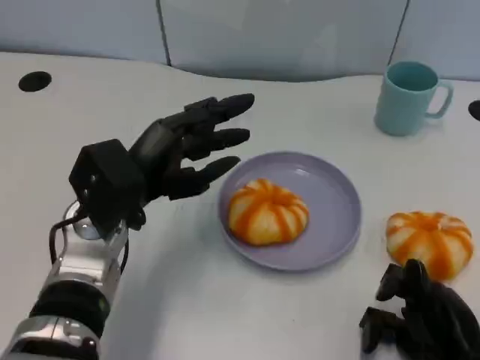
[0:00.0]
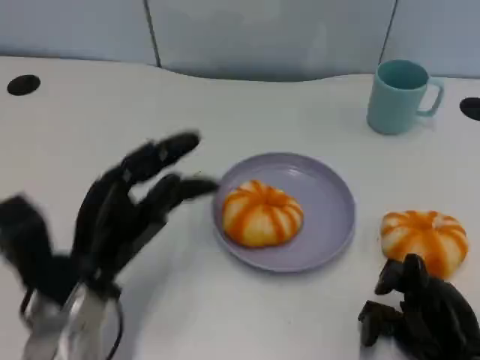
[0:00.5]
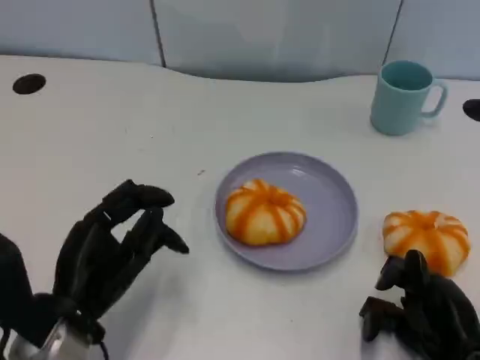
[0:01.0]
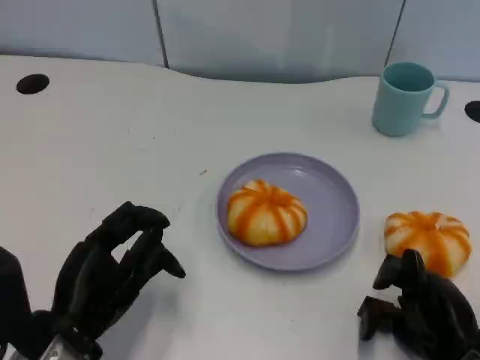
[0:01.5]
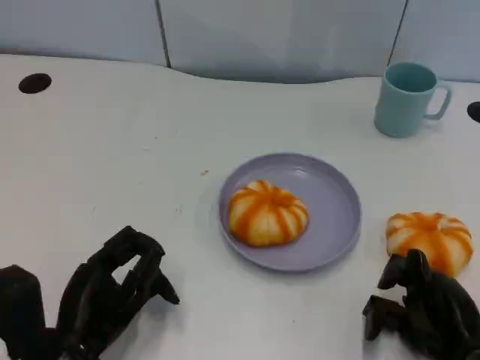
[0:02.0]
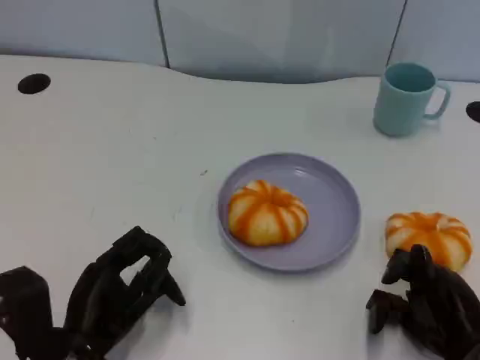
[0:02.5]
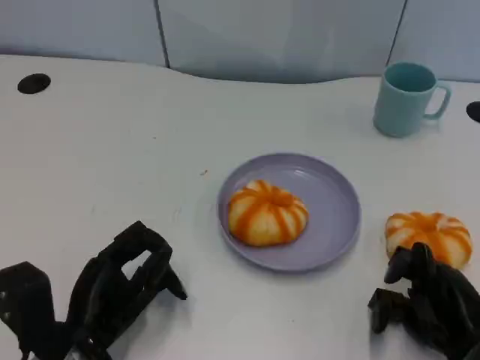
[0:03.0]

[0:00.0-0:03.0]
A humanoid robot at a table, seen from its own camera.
Task of the whole recording: Grasp the bread from the table and place it into the plate.
0:00.0 to 0:01.5: The left hand travels backward, downward and to the left by some 15 cm.
0:01.5 to 0:03.0: There are only small adjustments of the hands.

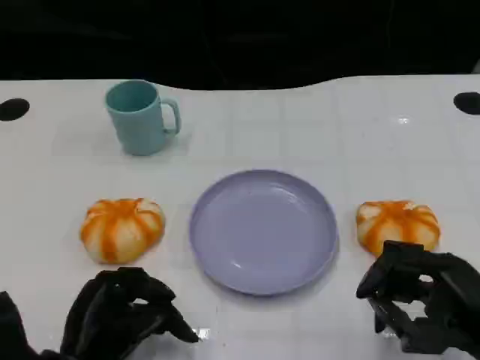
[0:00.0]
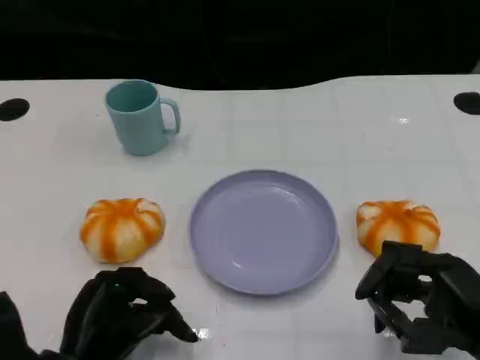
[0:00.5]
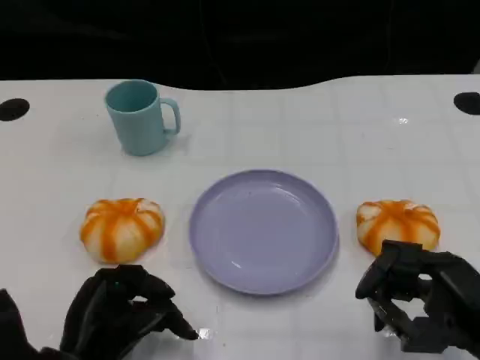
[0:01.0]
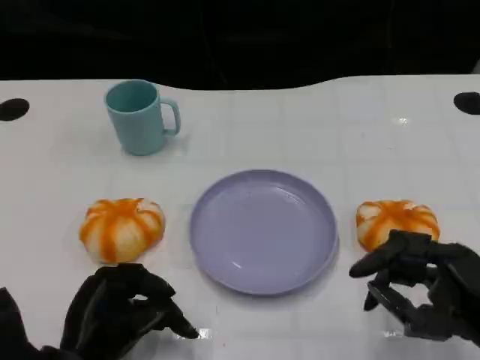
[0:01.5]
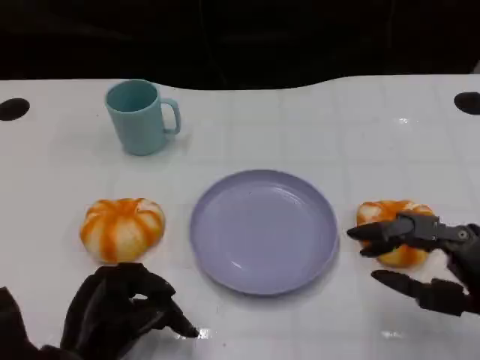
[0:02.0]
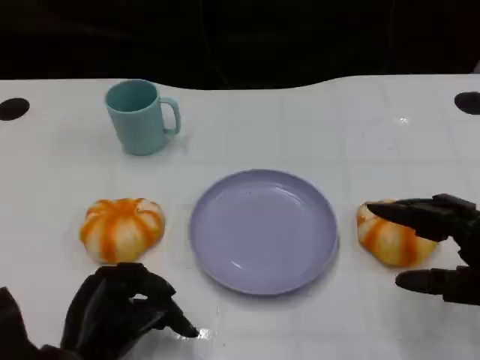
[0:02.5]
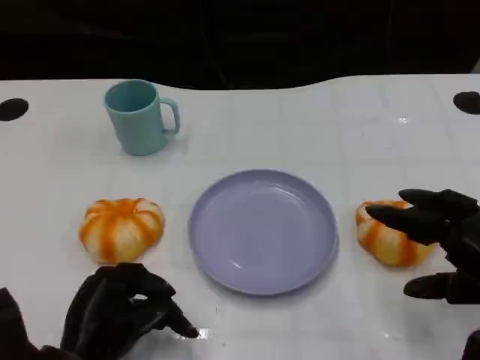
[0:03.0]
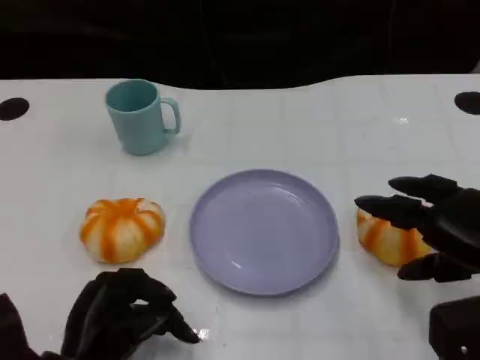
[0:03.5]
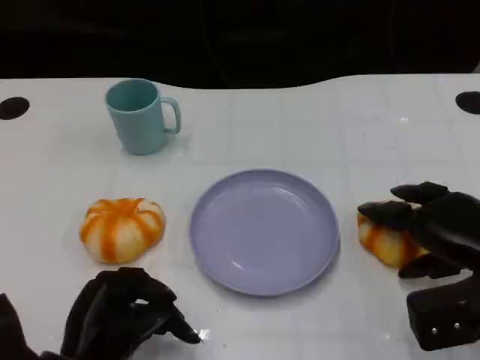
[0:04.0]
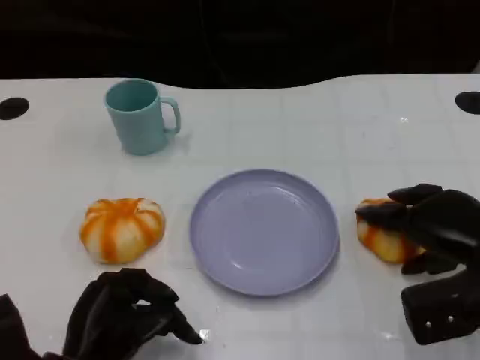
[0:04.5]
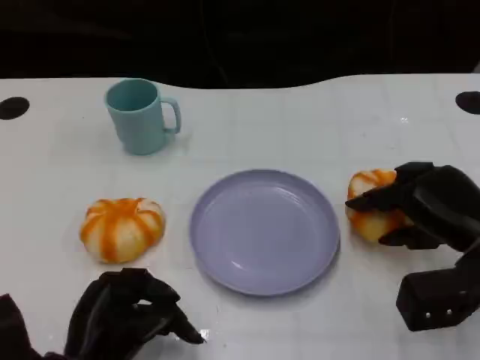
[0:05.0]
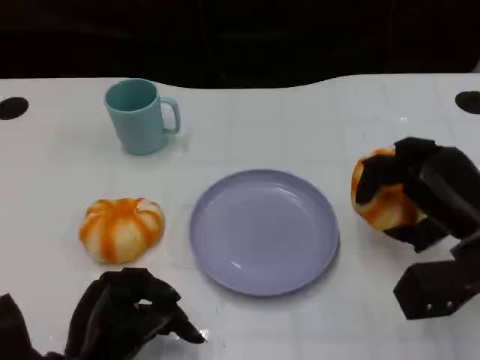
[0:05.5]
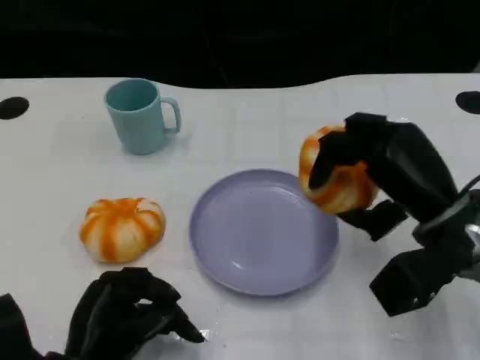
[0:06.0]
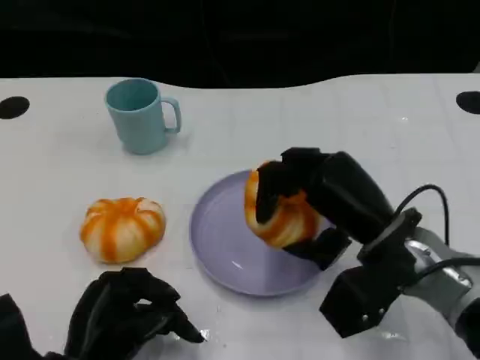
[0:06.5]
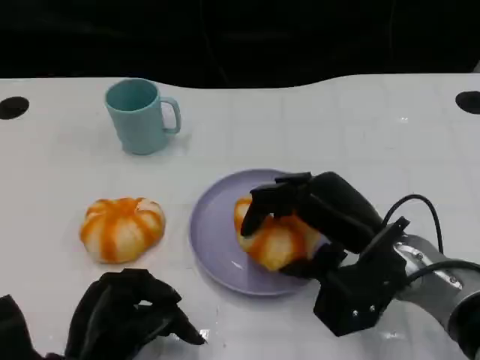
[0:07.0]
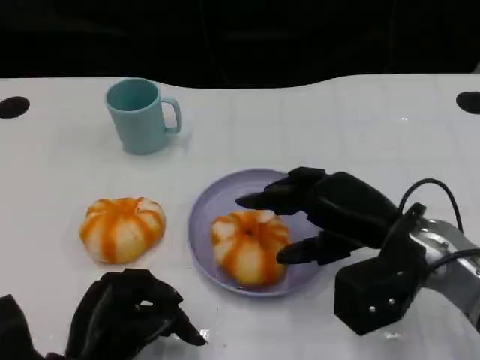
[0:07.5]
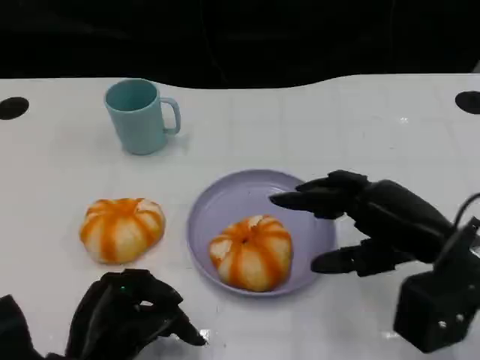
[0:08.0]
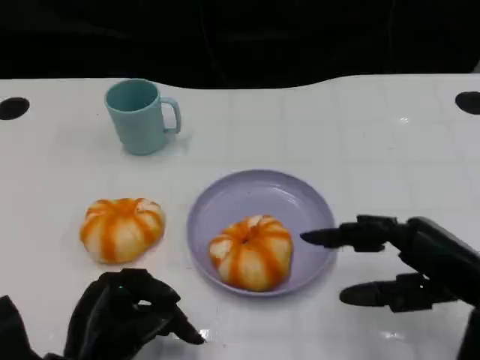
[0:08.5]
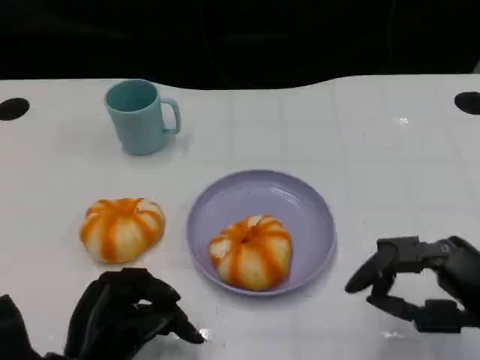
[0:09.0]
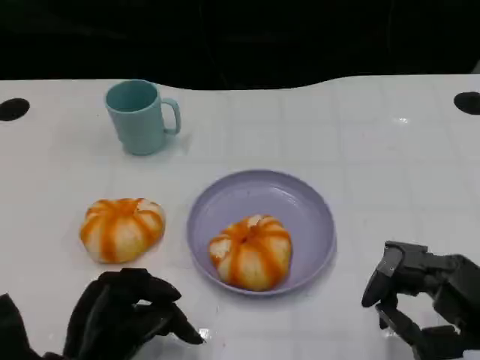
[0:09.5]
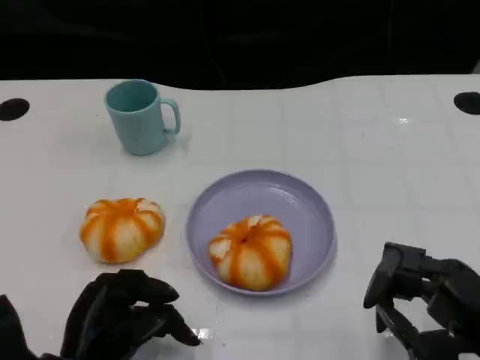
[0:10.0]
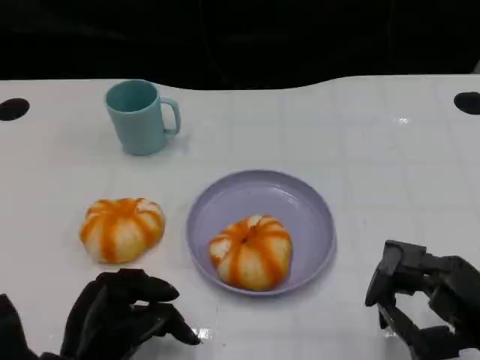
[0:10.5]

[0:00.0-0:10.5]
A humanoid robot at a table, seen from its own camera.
Task of the whole recording: Grasp the bread from the table and place it into the plate.
0:02.0 to 0:04.0: The right hand goes approximately 10 cm forward.
0:04.0 to 0:06.5: The right hand travels to the left by some 10 cm.
0:06.5 to 0:08.5: The right hand goes some 10 cm to the right and backward.
0:08.5 to 0:10.5: The right hand ends up approximately 5 cm from where it was.

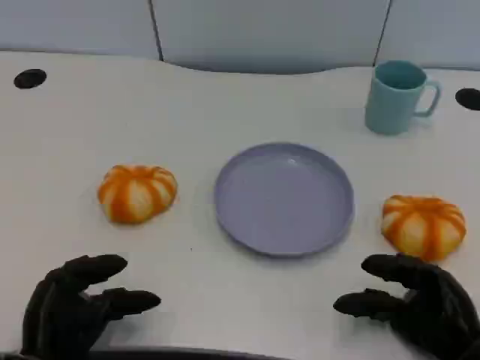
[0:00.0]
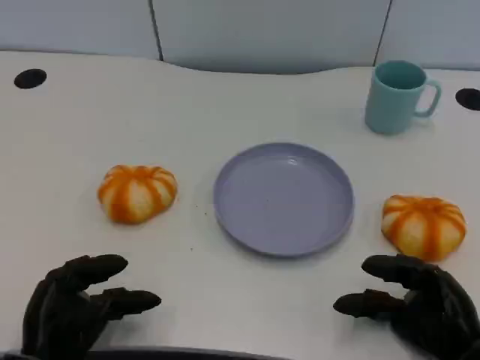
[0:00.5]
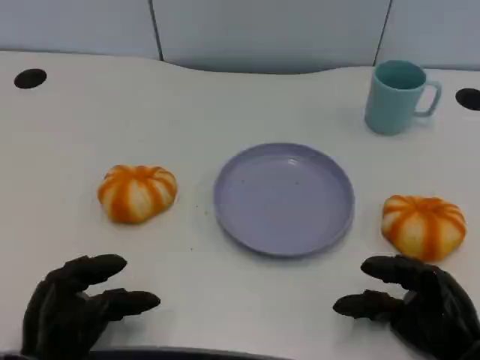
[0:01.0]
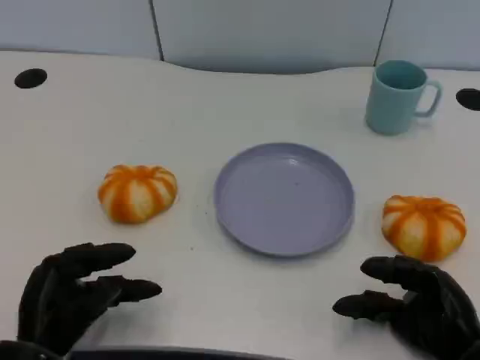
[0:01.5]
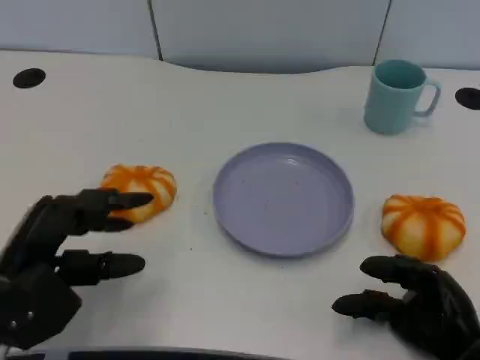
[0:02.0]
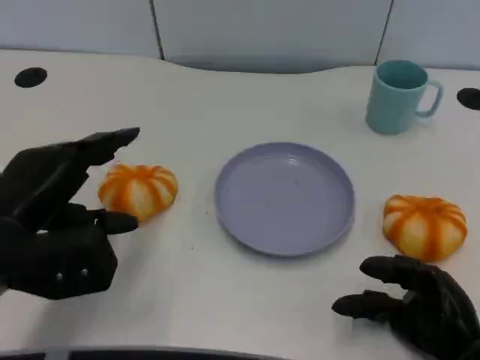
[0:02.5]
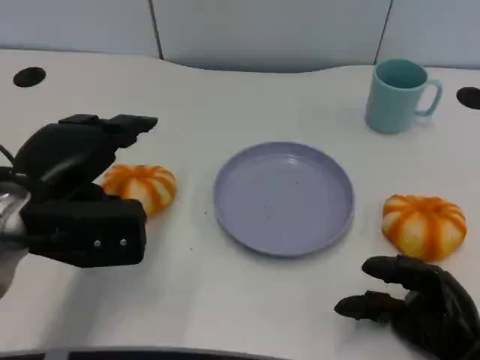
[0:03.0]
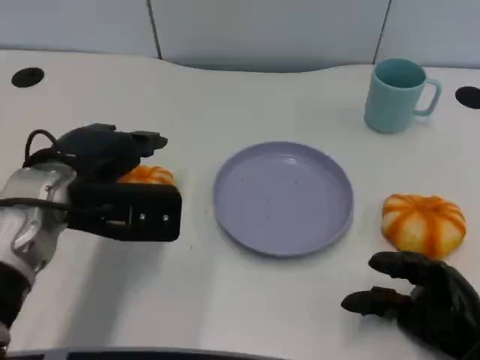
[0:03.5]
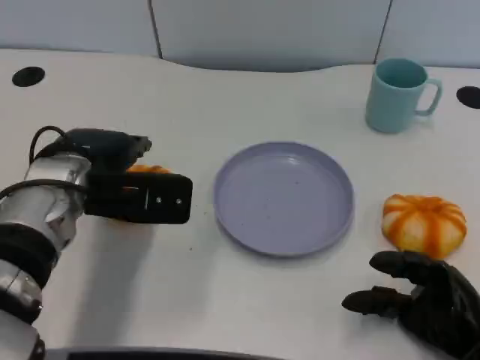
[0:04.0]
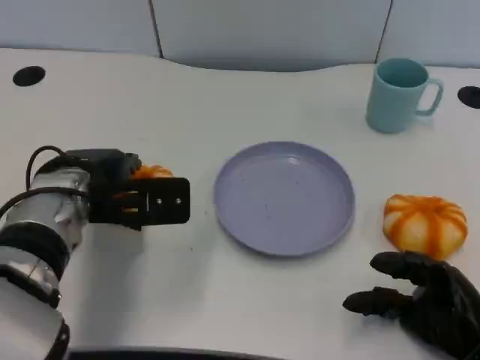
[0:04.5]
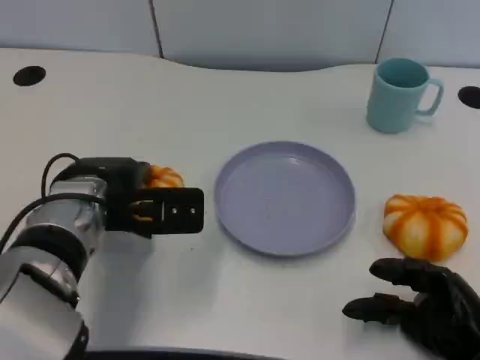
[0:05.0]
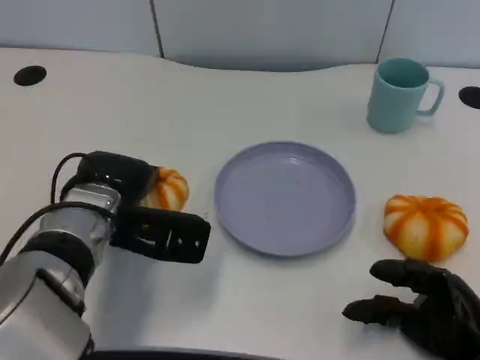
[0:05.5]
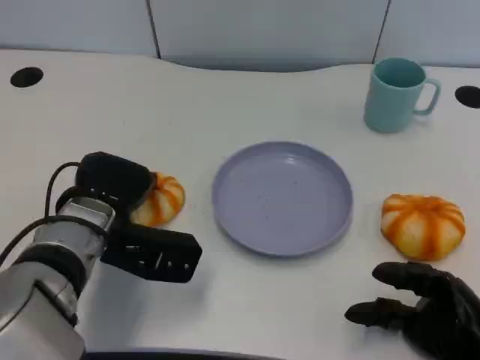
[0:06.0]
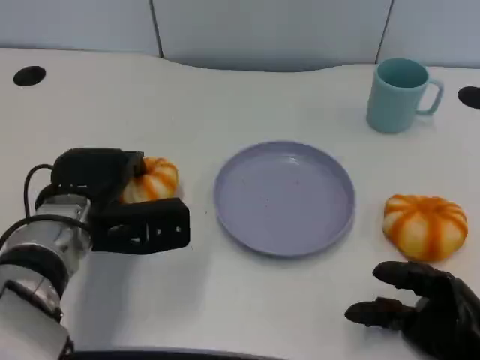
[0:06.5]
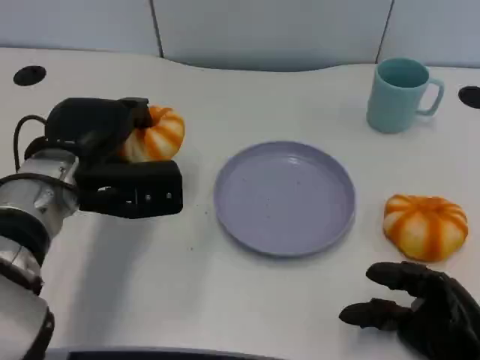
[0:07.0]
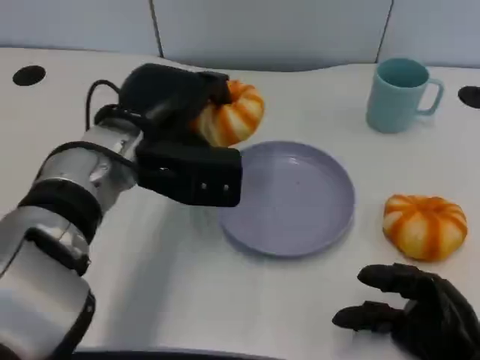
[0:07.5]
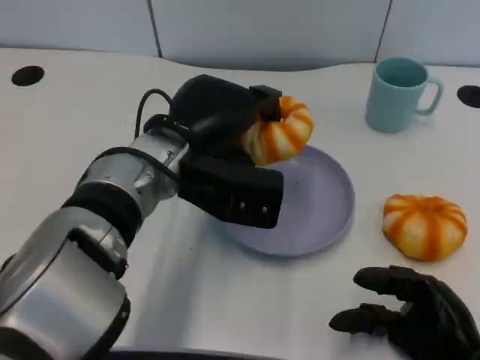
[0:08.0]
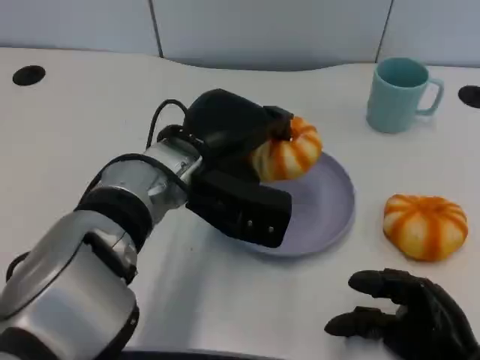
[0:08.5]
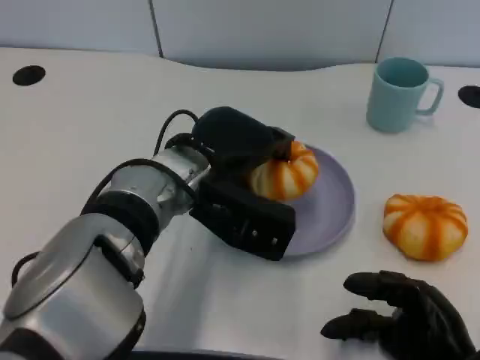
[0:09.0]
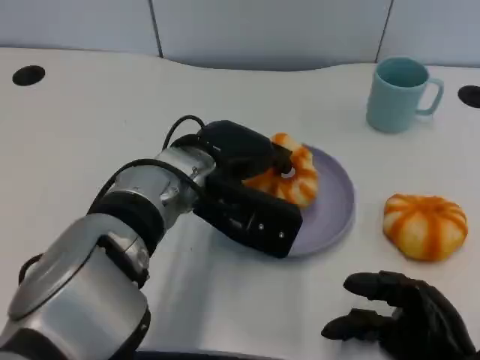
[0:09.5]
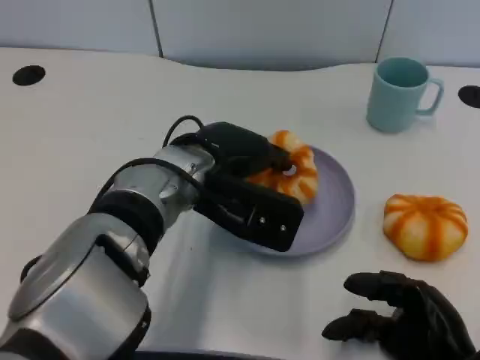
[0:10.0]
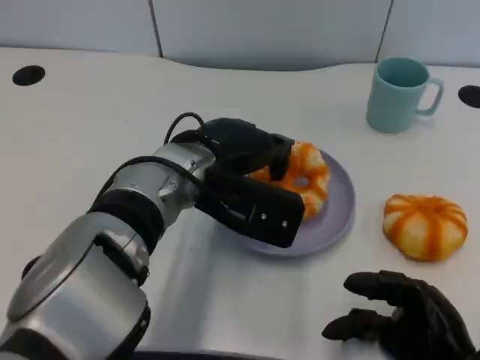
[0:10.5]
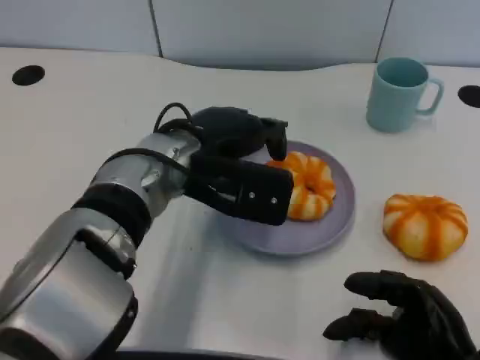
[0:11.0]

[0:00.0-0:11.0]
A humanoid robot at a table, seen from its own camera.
Task of the whole recording: Grasp the bread from the table and place it into the plate.
0:00.0 to 0:02.0: The left hand heads upward, covering about 10 cm.
0:02.0 to 0:03.5: The left hand heads forward, to the right and upward, covering some 10 cm.
0:03.5 to 0:05.5: The left hand heads downward, covering about 5 cm.
0:05.5 to 0:07.5: The left hand goes about 5 cm upward.
0:07.5 to 0:09.0: The left hand moves approximately 5 cm.
0:09.0 to 0:11.0: The hands stay close to where they were, moving slightly.

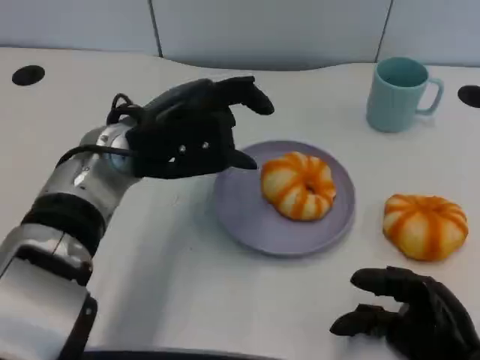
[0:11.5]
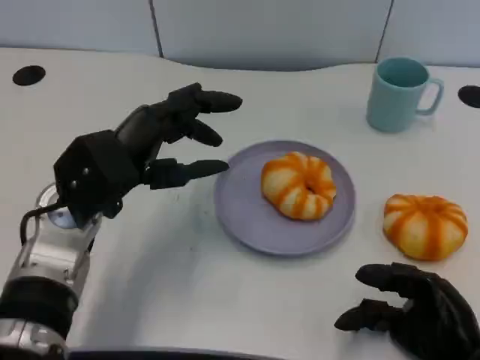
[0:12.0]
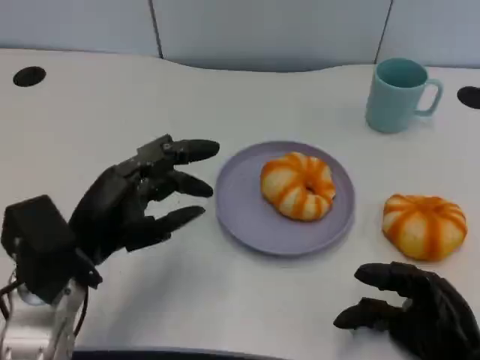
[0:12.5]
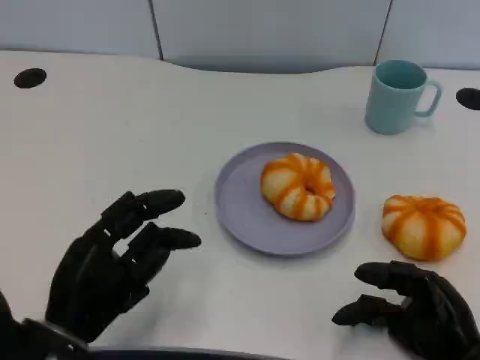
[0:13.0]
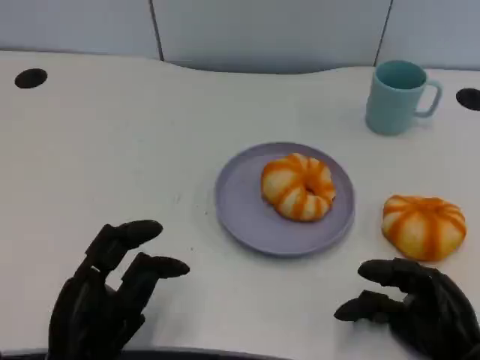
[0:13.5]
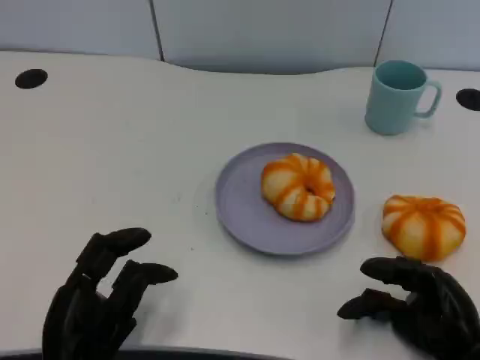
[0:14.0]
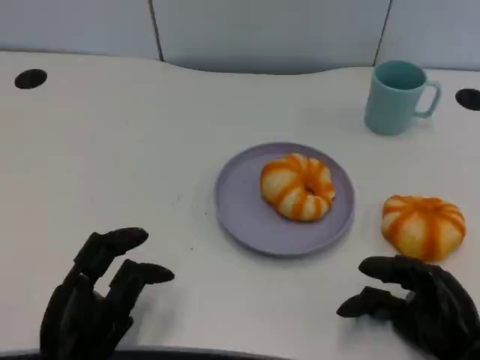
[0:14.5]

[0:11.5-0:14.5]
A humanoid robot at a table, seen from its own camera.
Task of the whole recording: Grasp the bread from the table and place it into the plate.
0:11.5 to 0:13.0: The left hand shifts some 20 cm backward, downward and to the left.
0:13.0 to 0:14.5: The hands move only a little.
